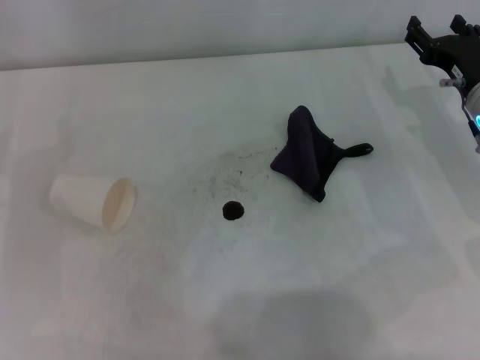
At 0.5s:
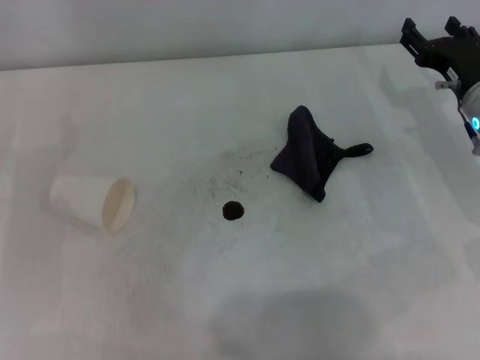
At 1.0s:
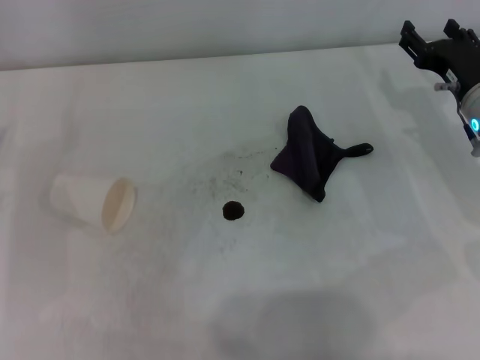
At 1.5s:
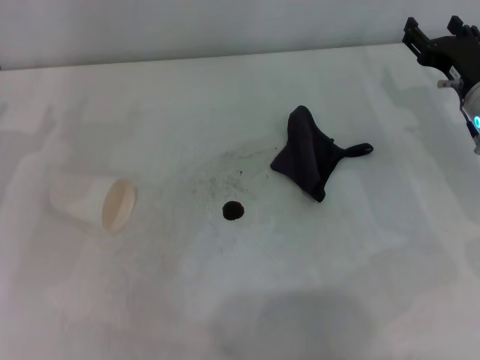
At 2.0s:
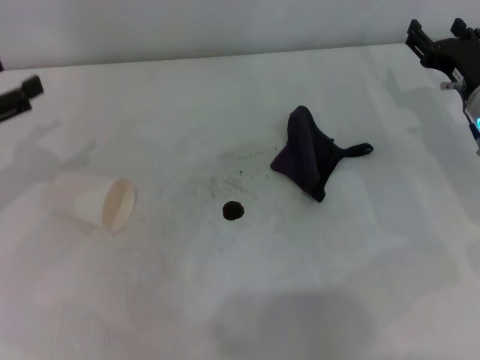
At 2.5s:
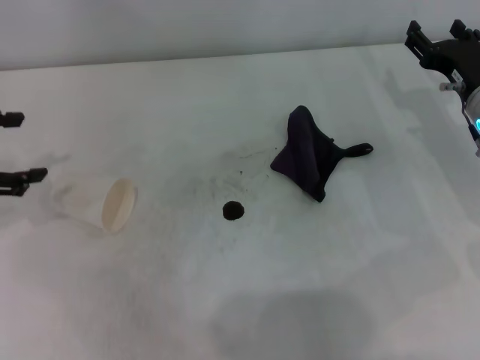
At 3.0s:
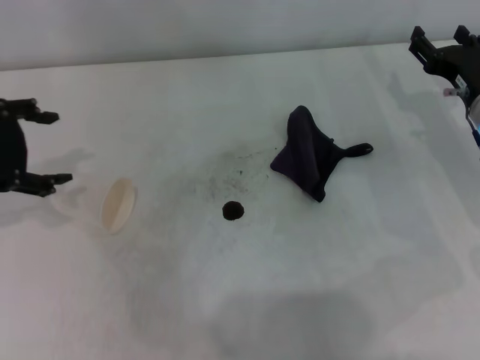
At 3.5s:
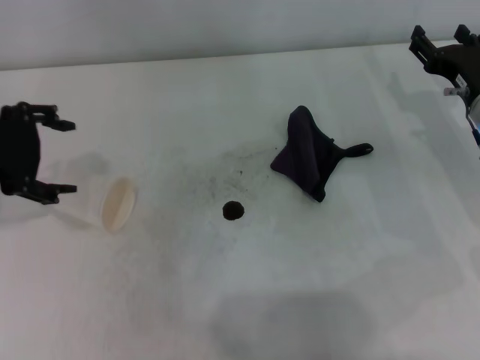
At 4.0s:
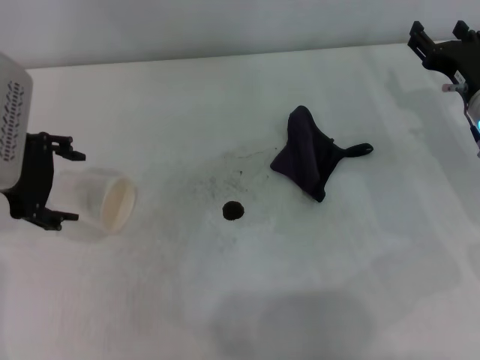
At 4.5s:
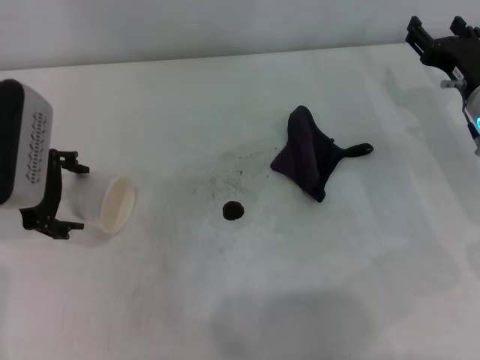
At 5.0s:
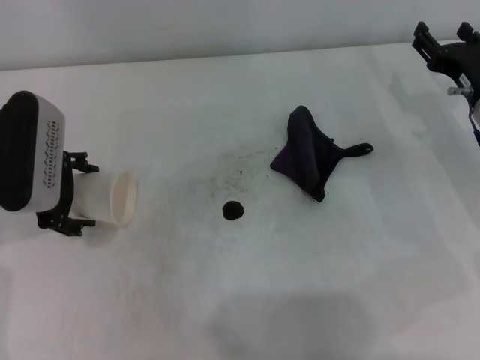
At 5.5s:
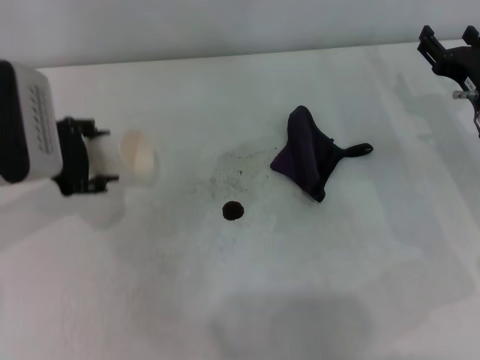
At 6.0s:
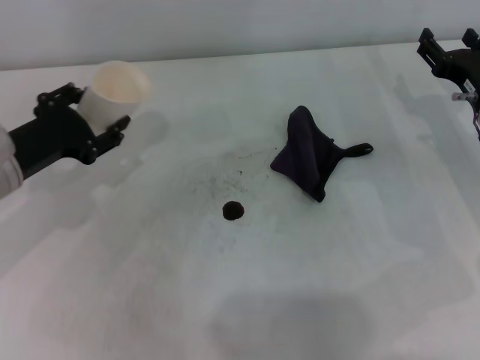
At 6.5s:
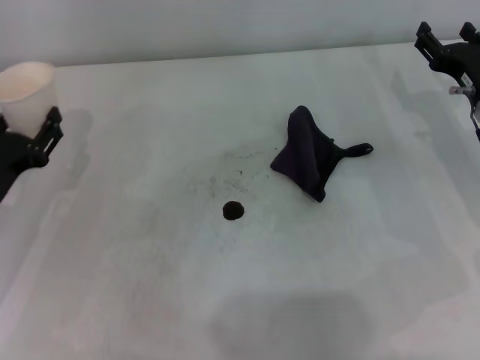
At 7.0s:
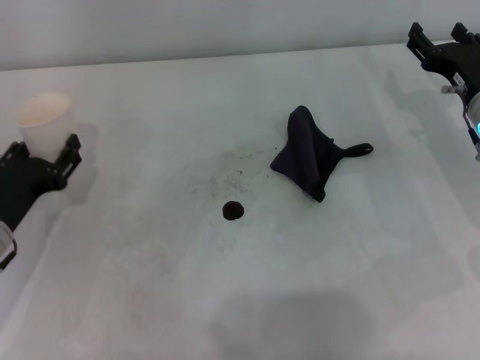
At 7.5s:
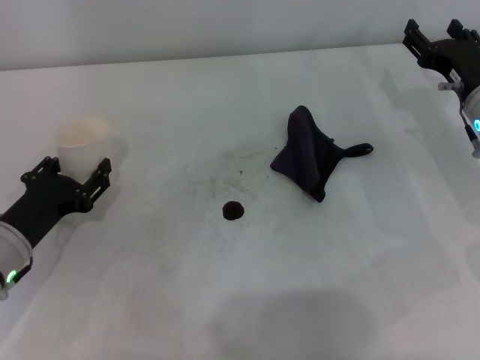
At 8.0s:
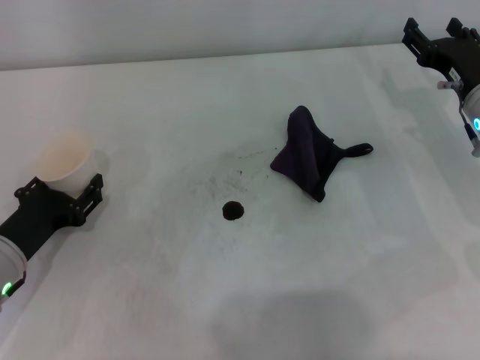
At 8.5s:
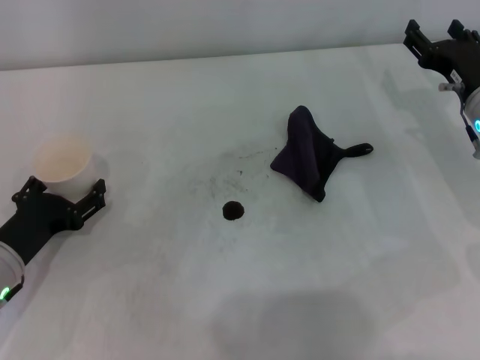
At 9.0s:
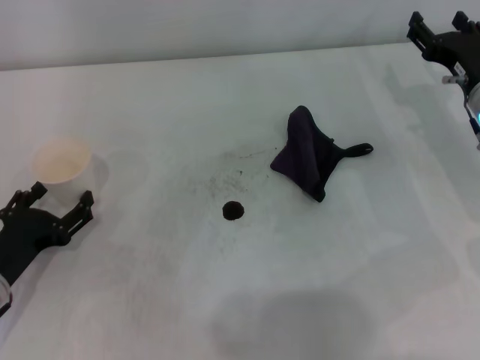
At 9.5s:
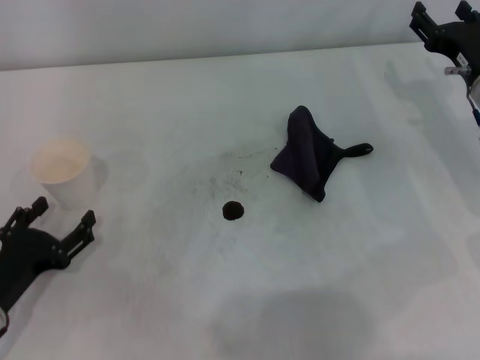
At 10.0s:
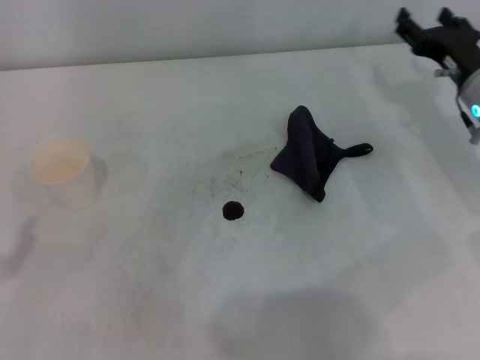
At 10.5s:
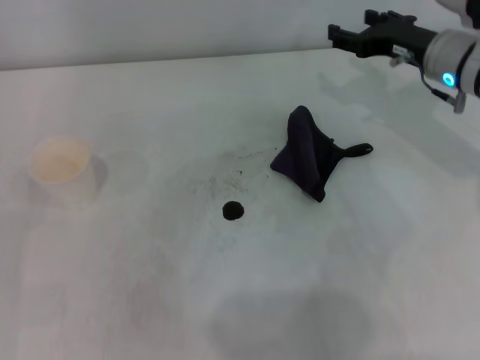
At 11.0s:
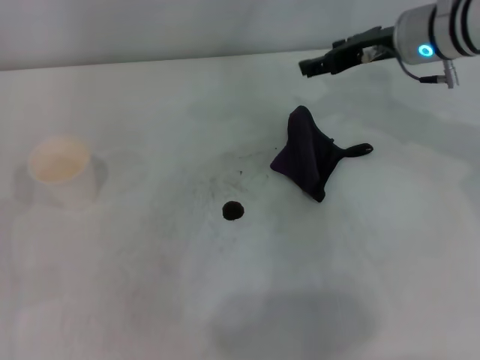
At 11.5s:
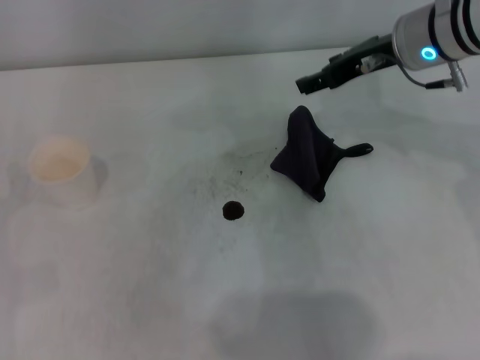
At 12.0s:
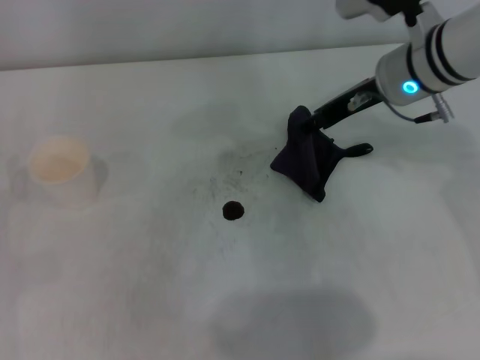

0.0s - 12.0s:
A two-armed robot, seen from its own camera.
Step, 0.0s - 4.5s: Grasp the paper cup with the left gripper.
Step, 5.0s - 8.5s: Stand the paper cup upright with the left gripper.
0.0s - 2.0s: The left gripper goes roughly 10 cm upward.
2.0s - 4.0s: The left gripper moves to the right and upward, about 10 cm.
4.0s - 6.0s: The left gripper heads downward, covering approximately 10 cm, and closes.
6.0s - 8.0s: The left gripper travels downward and backward by some 10 cm.
8.0s - 10.0s: The left gripper is displaced backward and to the left by roughly 10 cm, and opens.
10.0s - 12.0s: The left gripper shifts some 10 cm forward. The right gripper moves to the left and upward, about 10 cm.

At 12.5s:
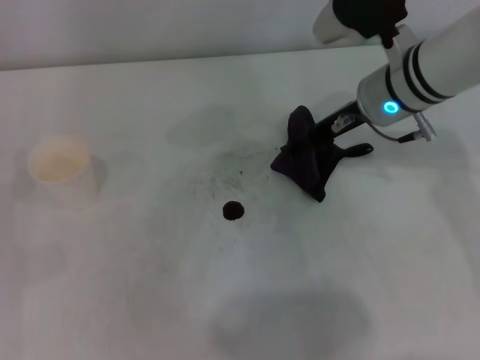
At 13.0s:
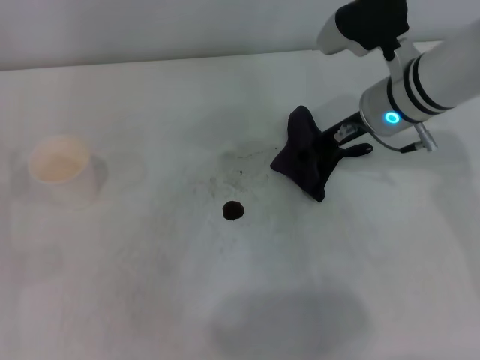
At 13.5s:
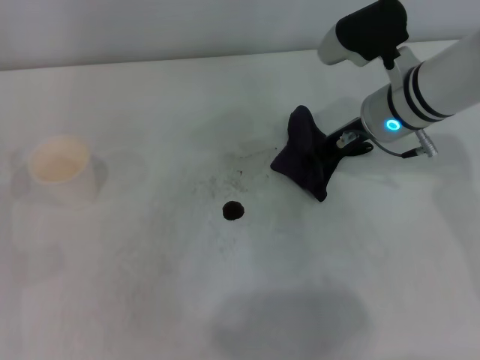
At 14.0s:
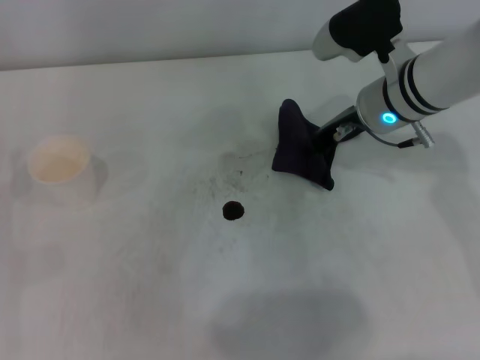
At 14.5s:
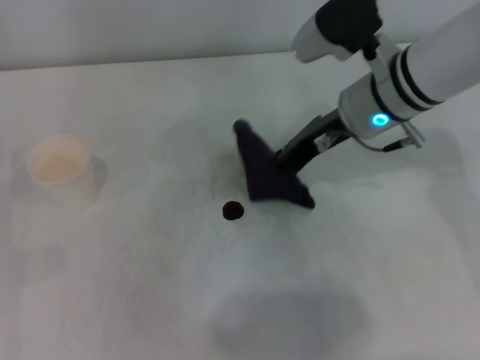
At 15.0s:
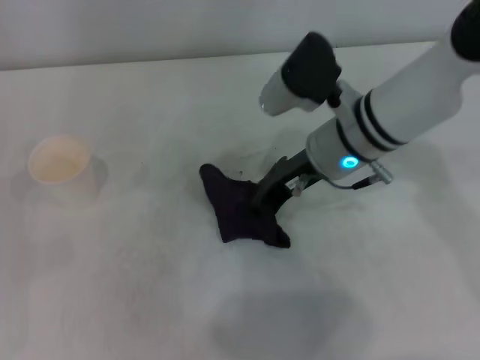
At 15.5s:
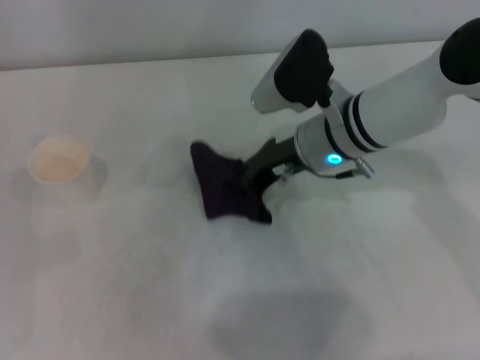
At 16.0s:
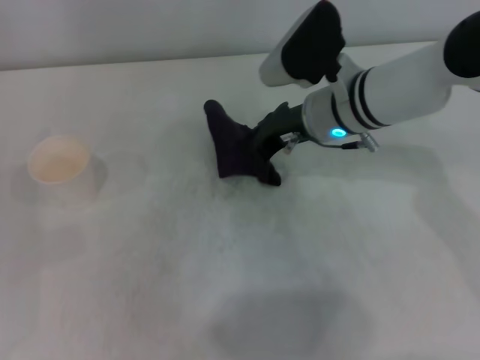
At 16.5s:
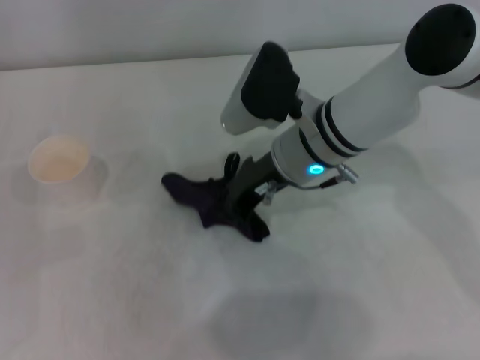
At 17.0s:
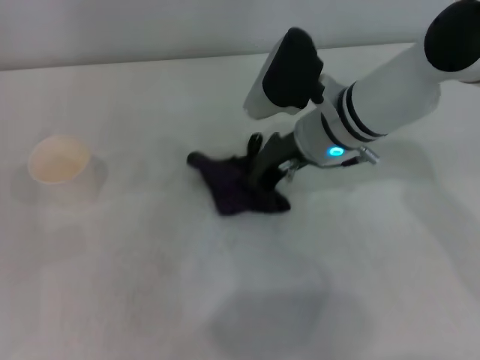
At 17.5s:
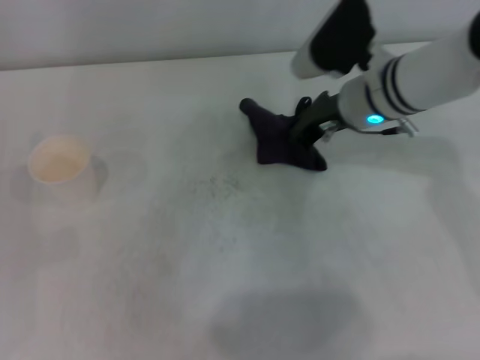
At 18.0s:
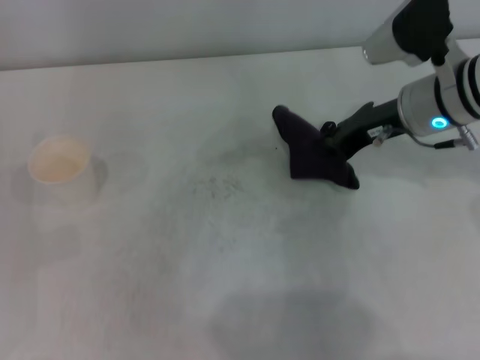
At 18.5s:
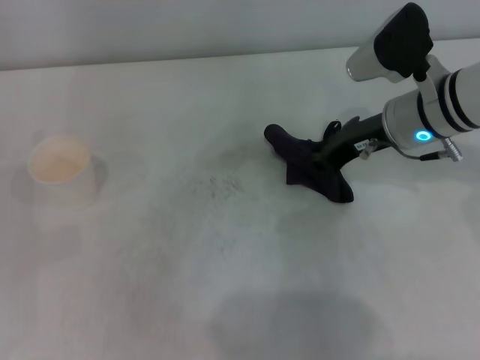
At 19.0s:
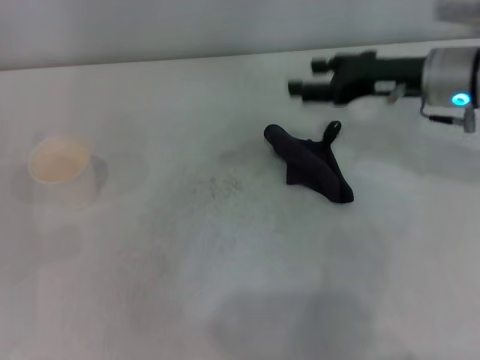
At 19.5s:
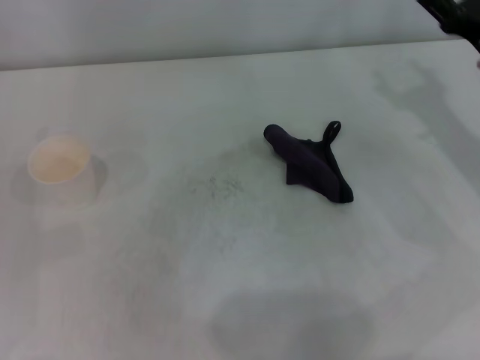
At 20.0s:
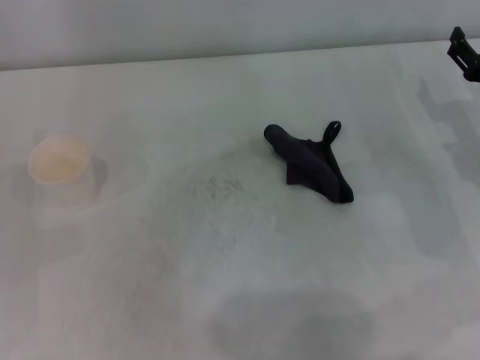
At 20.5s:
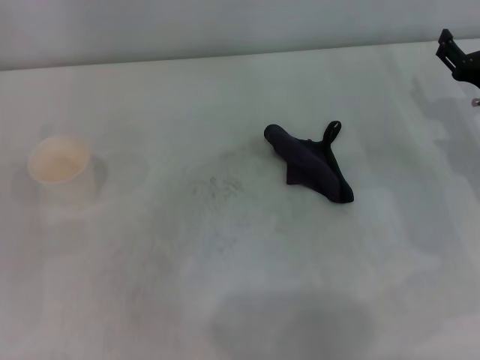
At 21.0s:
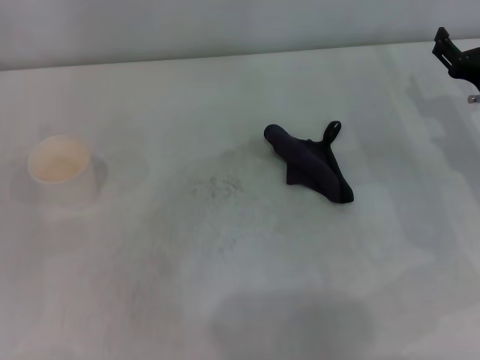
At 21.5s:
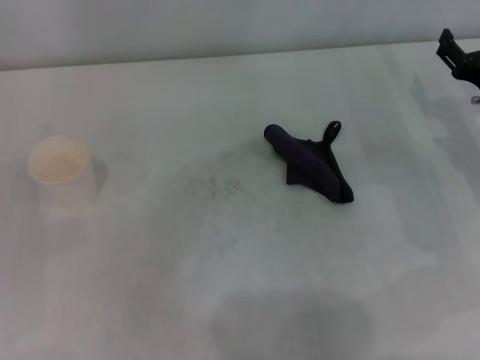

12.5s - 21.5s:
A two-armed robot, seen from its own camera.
Step, 14.0s - 17.0s: Wipe the stains off the table with the right gripper.
Step, 17.5s - 18.0s: Place the rag on the table with the right gripper.
12.5s - 14.5s: The right gripper closes.
14.5s - 17.0s: The right gripper changes place by about 5 cm.
17.0s - 19.5s: The right gripper goes approximately 20 cm to the right, and opens up.

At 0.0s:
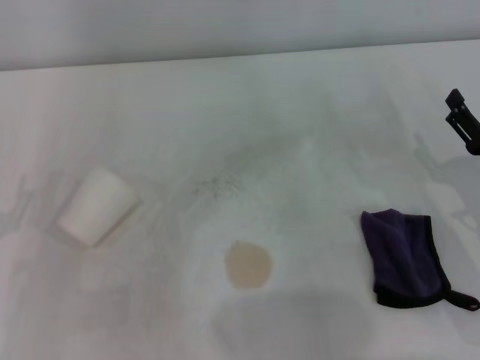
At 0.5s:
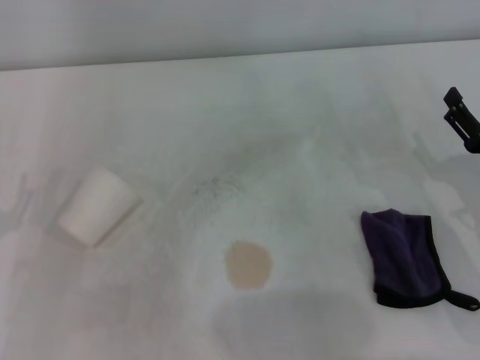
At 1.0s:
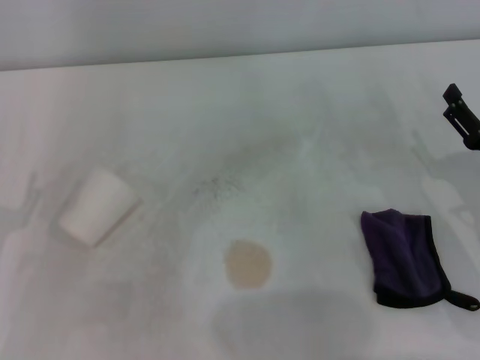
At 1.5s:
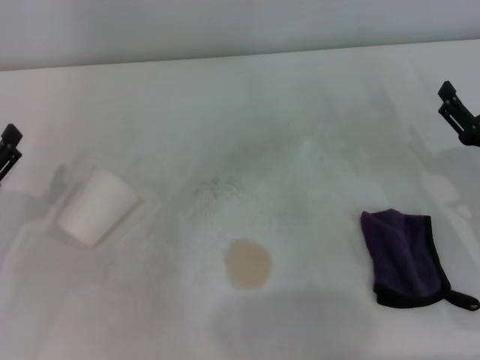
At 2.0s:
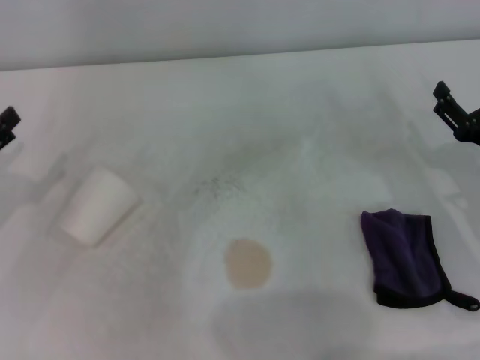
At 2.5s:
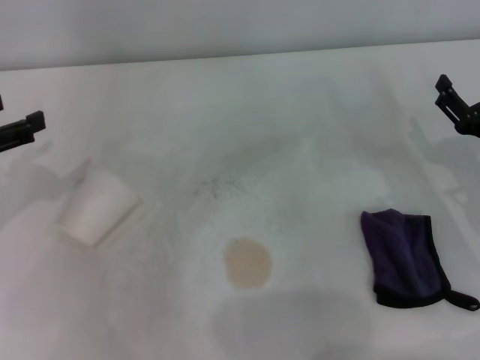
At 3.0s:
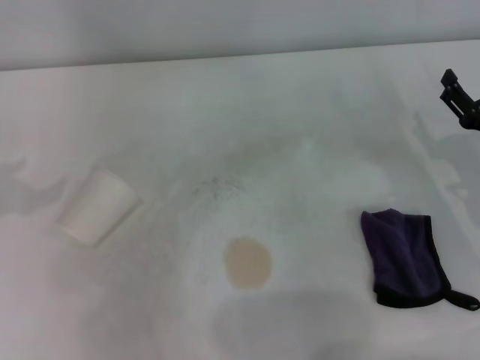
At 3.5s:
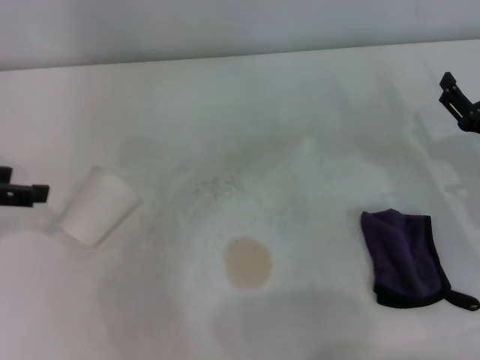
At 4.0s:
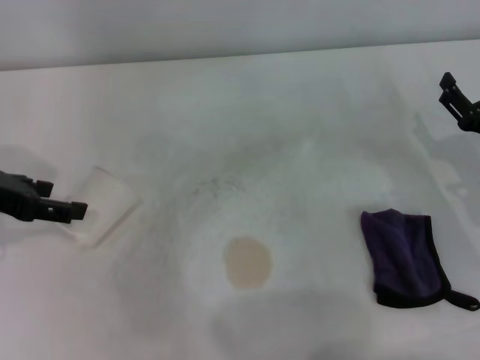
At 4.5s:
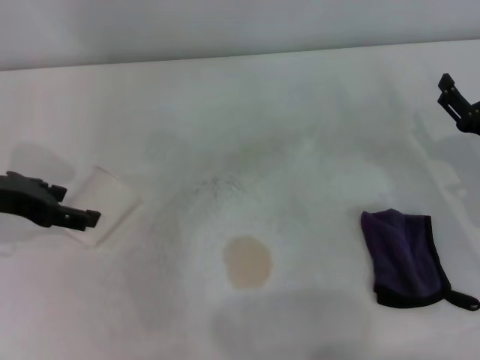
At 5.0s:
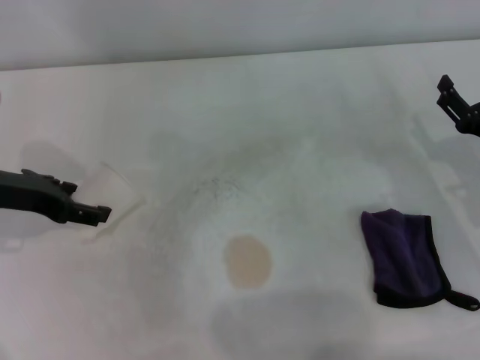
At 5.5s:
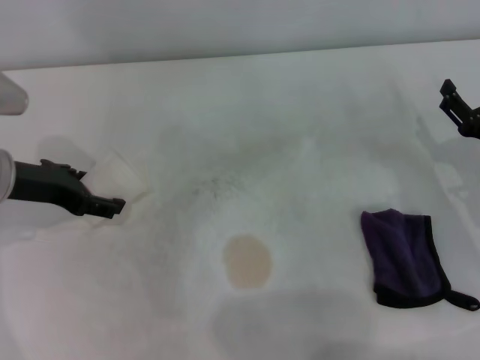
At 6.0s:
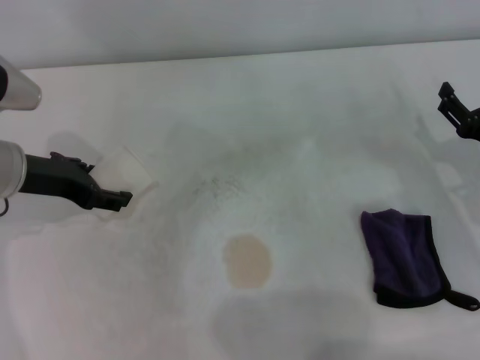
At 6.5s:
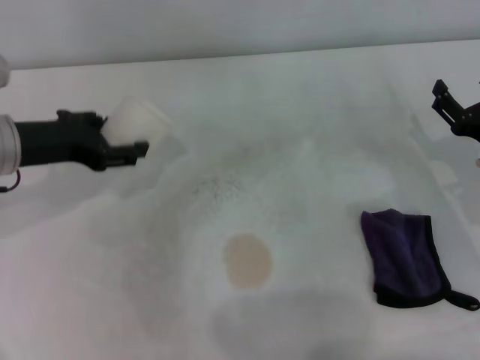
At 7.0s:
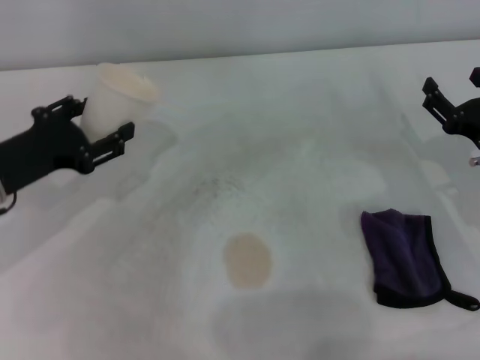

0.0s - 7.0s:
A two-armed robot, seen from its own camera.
Step, 0.0s - 4.5s: Grasp the paper cup with the left gripper.
2.0s - 3.5s: The left gripper goes approximately 10 cm upward.
3.5s - 5.0s: The left gripper is displaced to the right and downward by approximately 10 cm.
5.0s - 7.0s: The left gripper closes its fingers.
